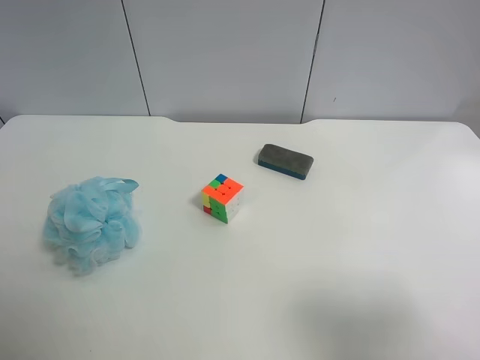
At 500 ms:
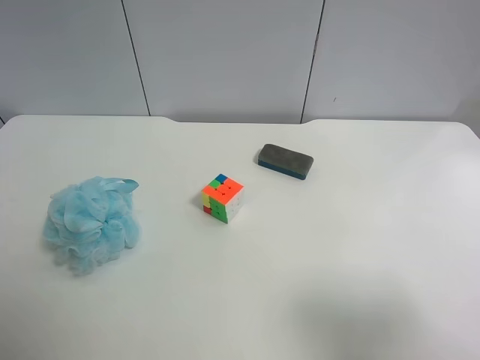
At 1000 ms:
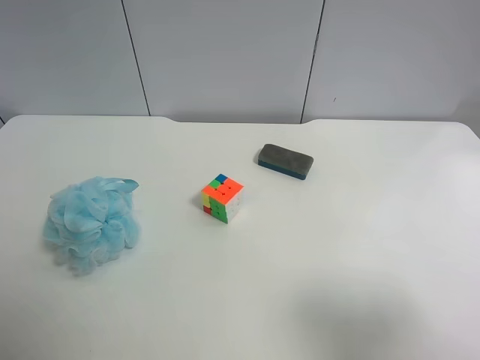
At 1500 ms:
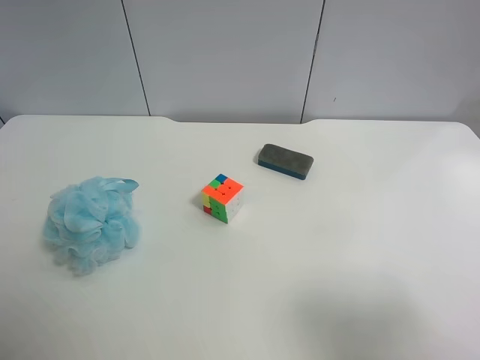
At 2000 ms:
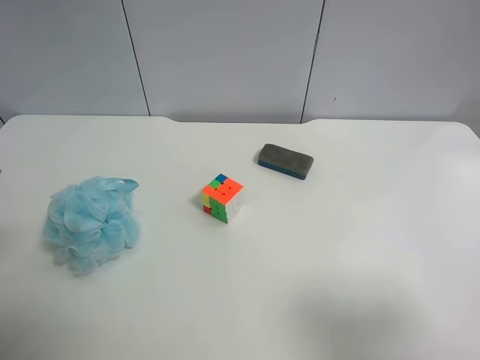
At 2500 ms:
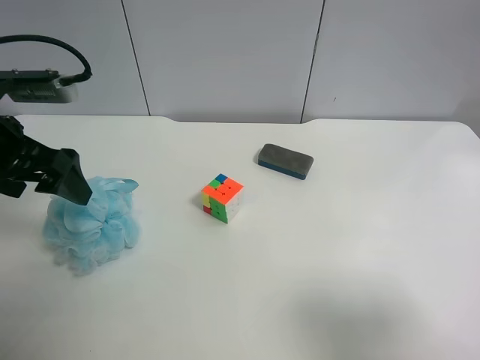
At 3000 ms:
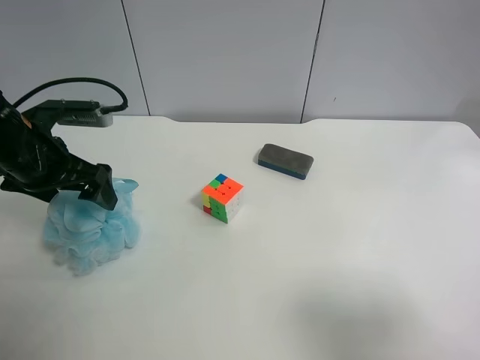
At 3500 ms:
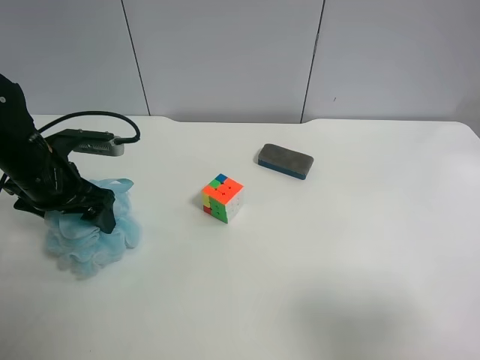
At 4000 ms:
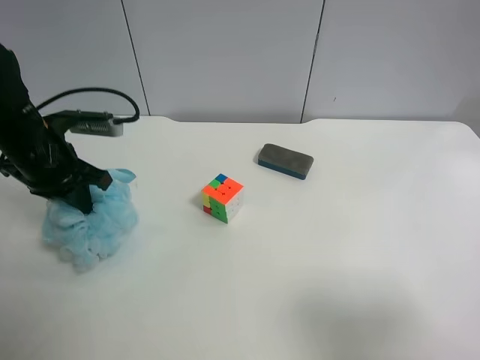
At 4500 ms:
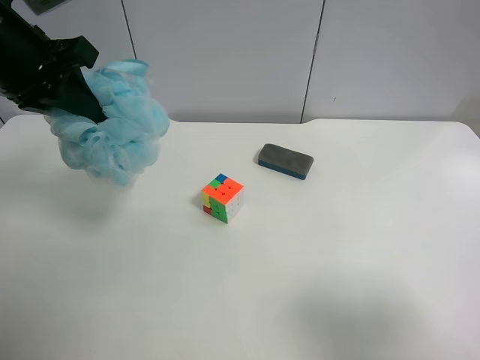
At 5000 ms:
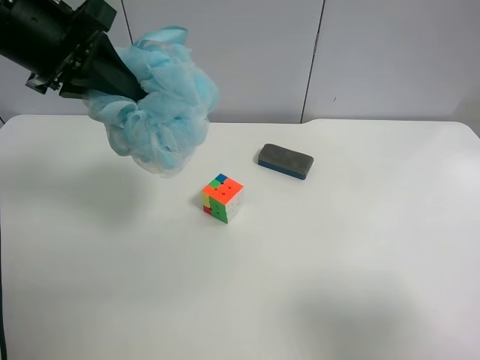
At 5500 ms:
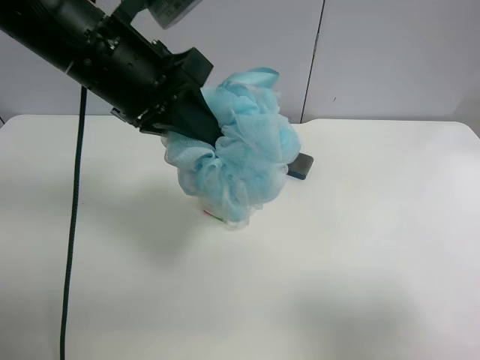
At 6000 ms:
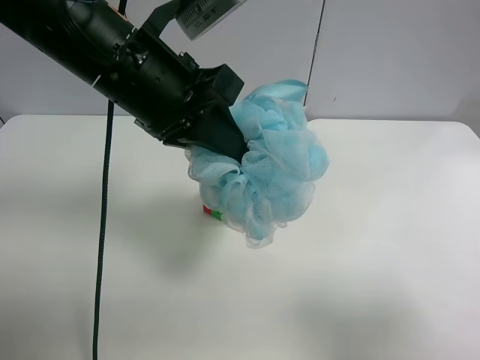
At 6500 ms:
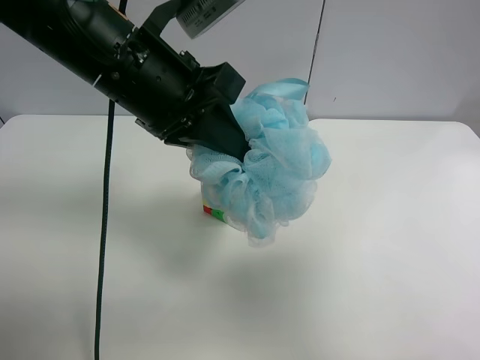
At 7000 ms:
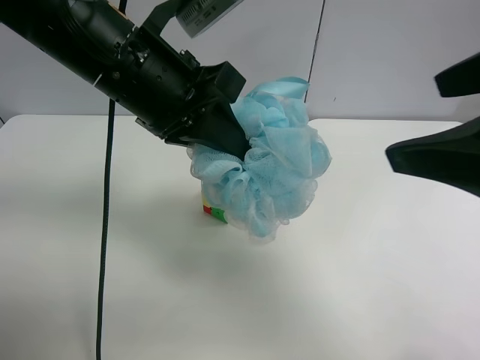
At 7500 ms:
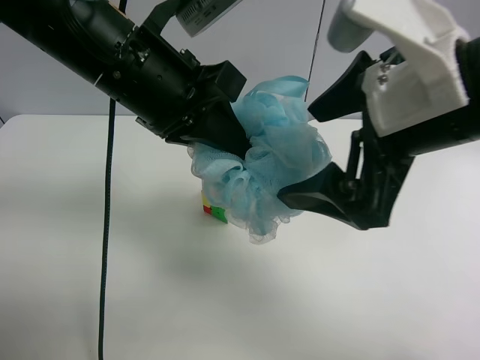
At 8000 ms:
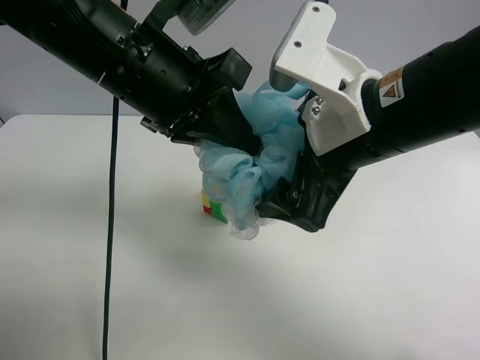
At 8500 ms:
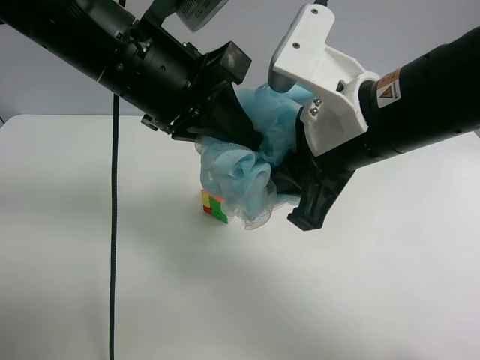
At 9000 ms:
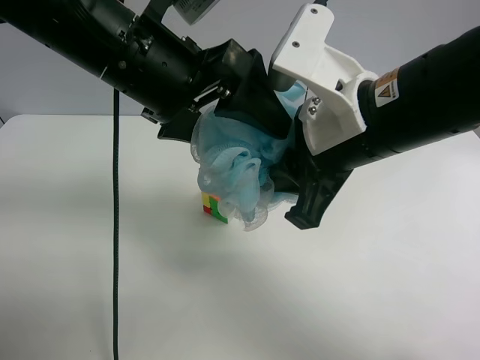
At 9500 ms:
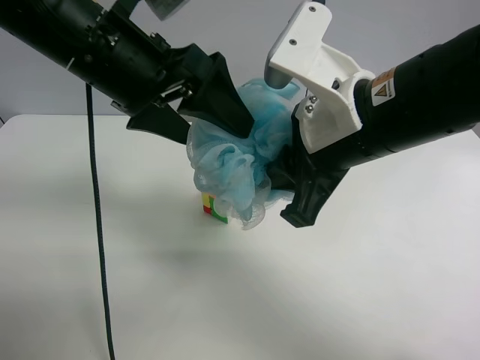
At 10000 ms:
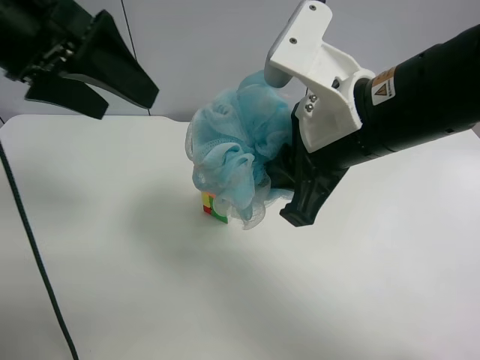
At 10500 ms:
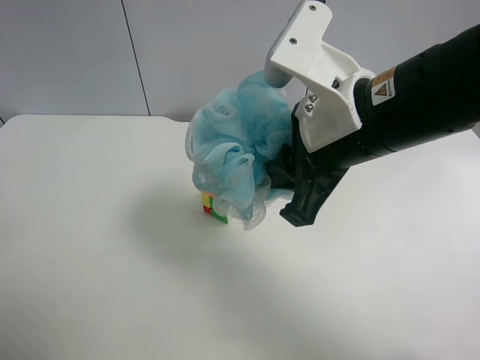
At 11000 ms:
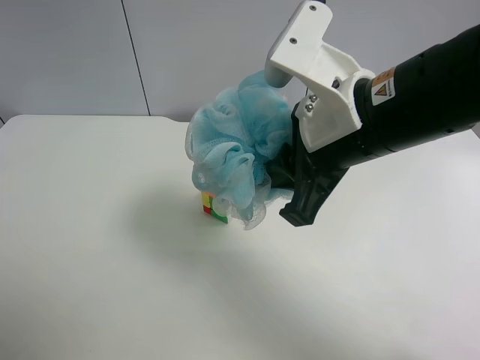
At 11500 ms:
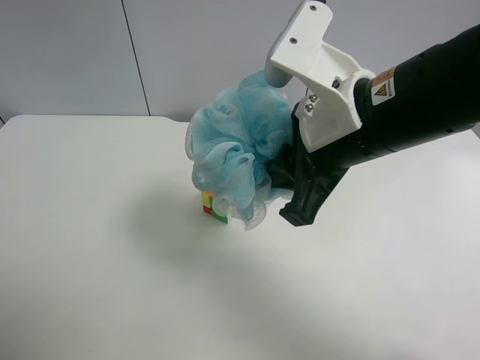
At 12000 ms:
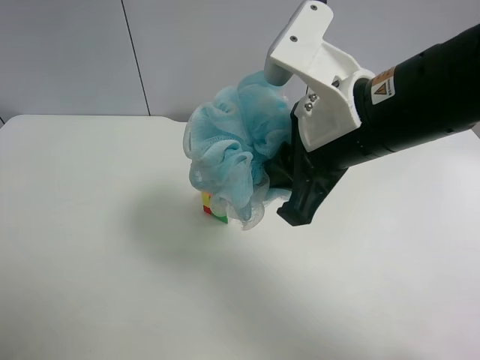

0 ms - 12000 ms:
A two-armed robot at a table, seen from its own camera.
Task of the whole recording: use the left gripper to pick up the item and transfer it from the left gripper to the right gripper.
2000 ms - 4000 ms: The left gripper travels forward and downward by some 20 cm, and closes up.
4000 ms - 6000 ms: The left gripper is displaced to the right and upward by roughly 20 cm.
6000 ms - 8000 ms: The right gripper travels forward and to the left by approximately 25 cm.
8000 ms - 10000 ms: The left gripper travels to the left by some 10 cm, and opens. The right gripper closes up.
10000 ms - 12000 ms: The left gripper travels backward and to the left by roughly 25 cm.

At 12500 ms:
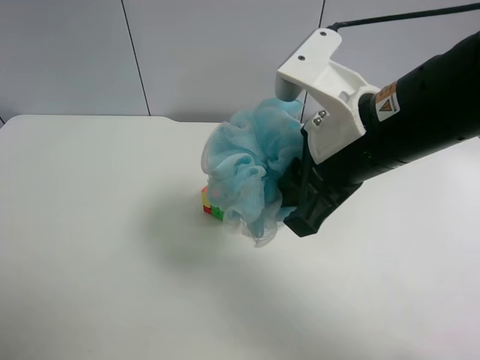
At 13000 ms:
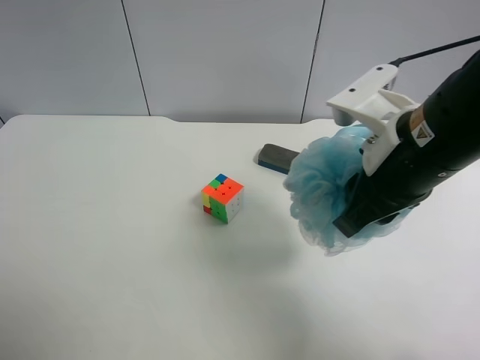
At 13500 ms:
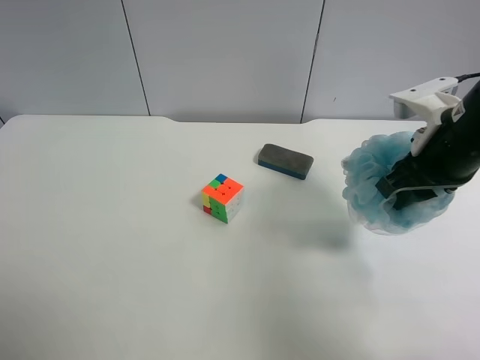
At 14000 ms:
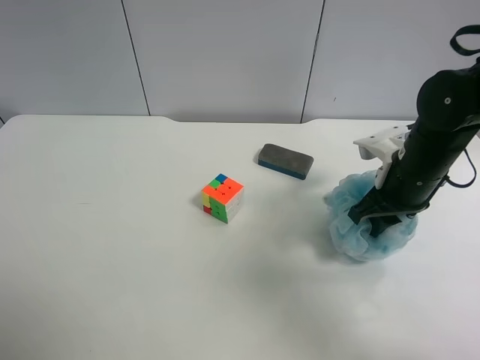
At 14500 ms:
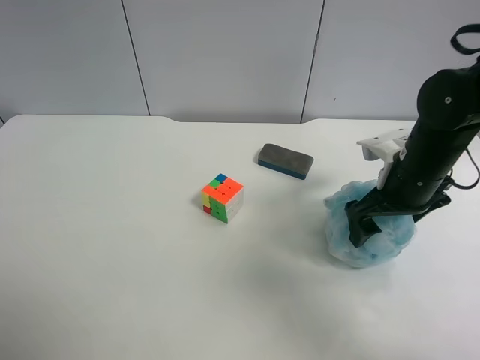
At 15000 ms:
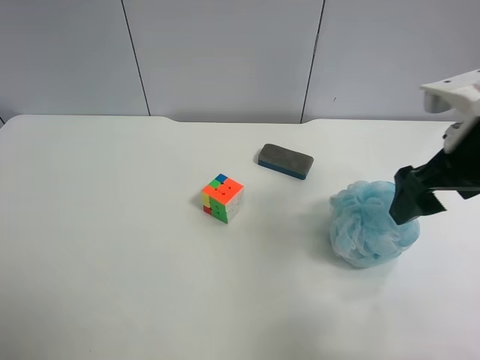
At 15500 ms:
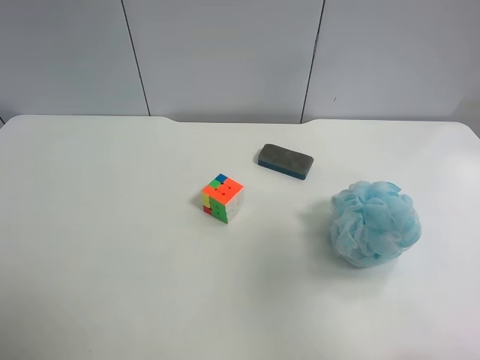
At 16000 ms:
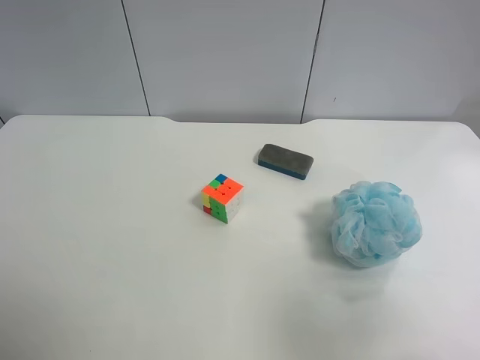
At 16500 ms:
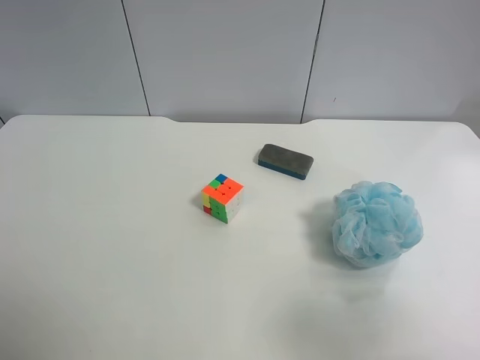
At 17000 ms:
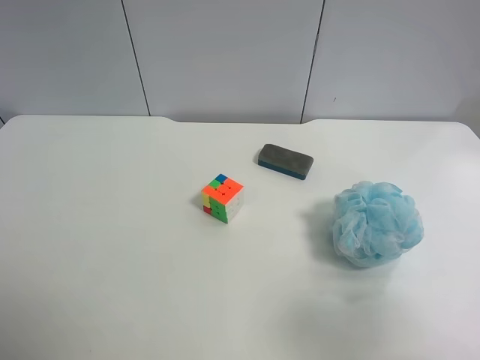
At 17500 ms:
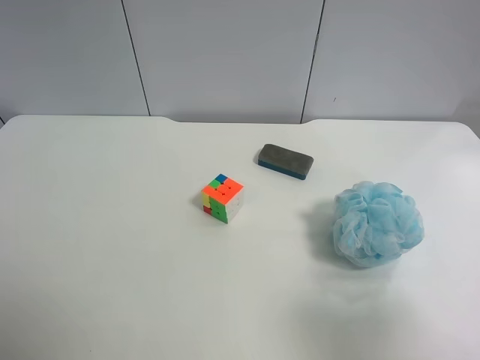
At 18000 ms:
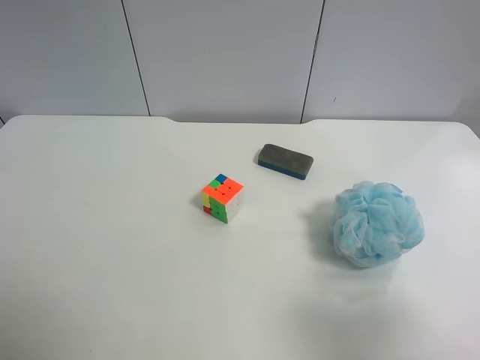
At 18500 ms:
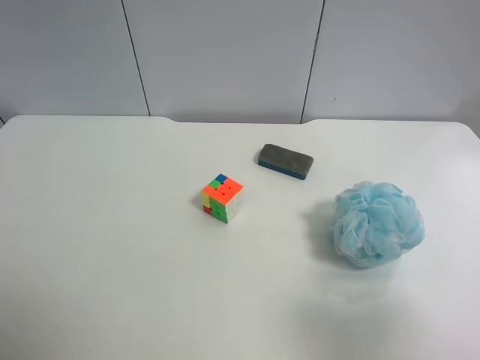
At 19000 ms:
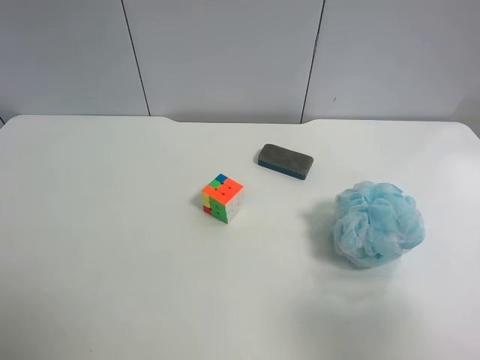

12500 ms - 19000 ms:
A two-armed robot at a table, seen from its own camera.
Task of the whole recording: use the left gripper to pick up the item and transfer it from the left gripper to the right gripper.
12500 ms - 14500 ms: The right gripper is displaced to the right, downward and forward by some 20 cm, and opens.
14500 ms - 17000 ms: The right gripper moves backward and upward, about 30 cm.
